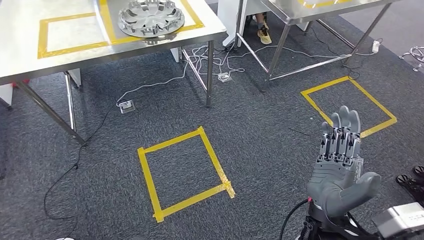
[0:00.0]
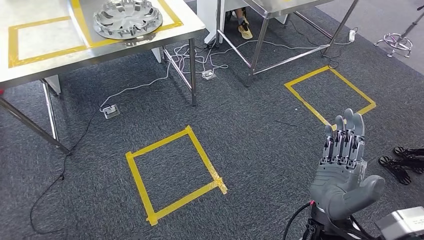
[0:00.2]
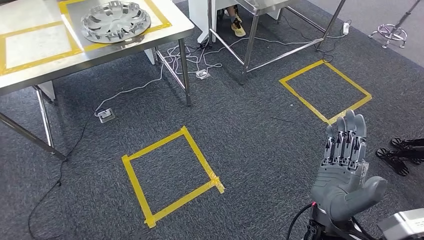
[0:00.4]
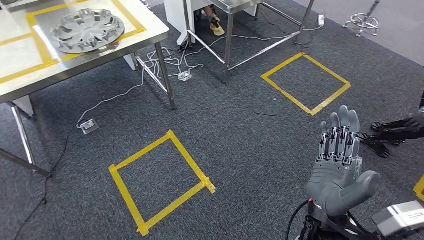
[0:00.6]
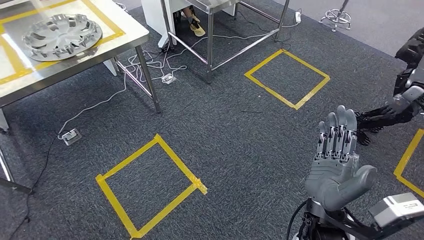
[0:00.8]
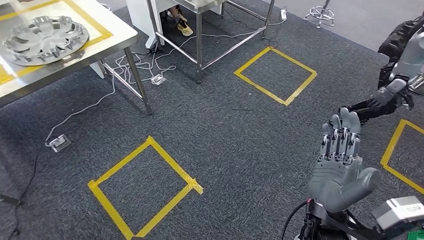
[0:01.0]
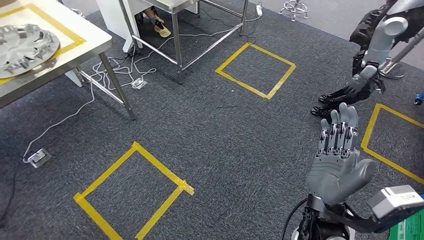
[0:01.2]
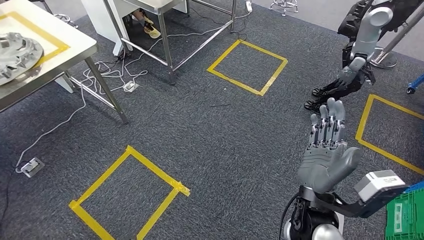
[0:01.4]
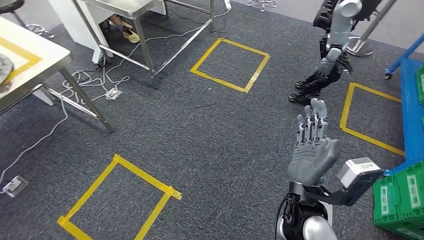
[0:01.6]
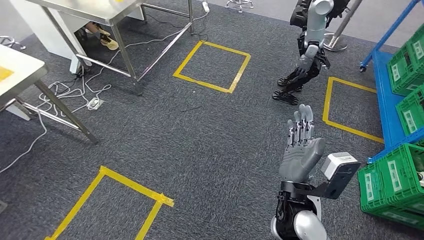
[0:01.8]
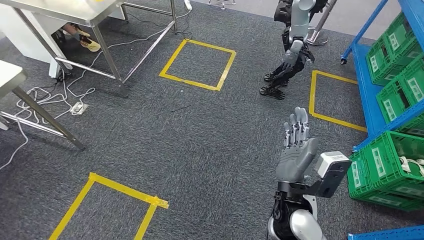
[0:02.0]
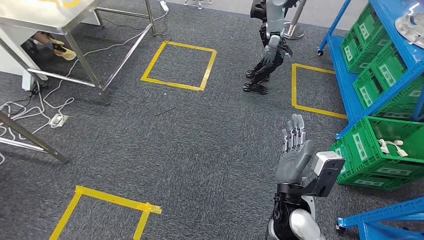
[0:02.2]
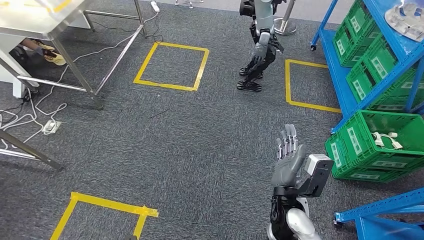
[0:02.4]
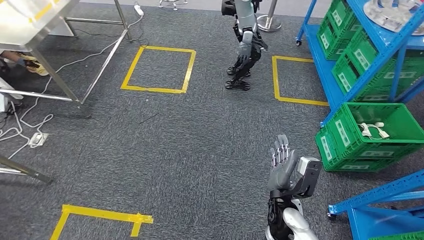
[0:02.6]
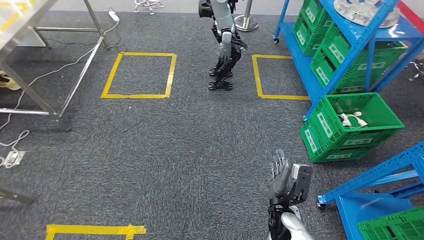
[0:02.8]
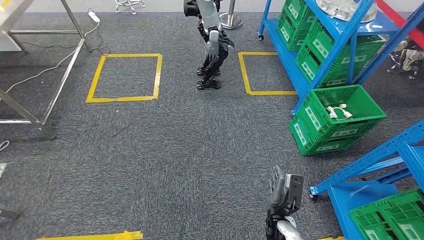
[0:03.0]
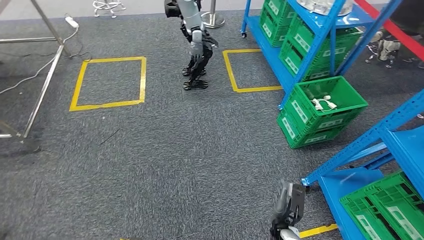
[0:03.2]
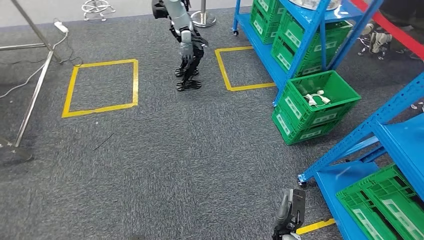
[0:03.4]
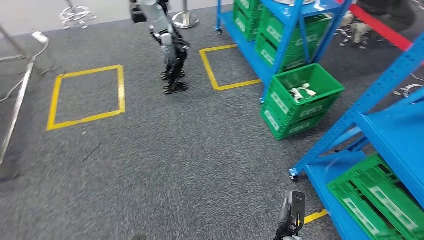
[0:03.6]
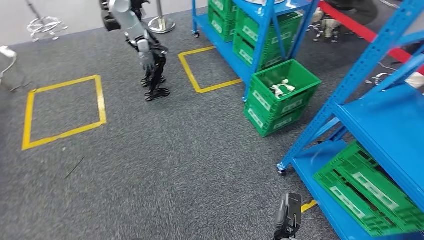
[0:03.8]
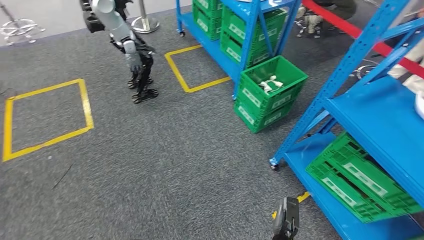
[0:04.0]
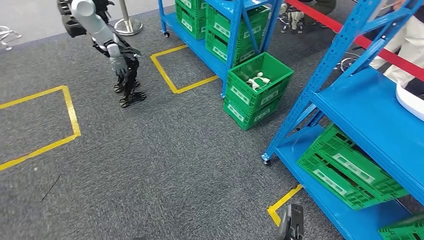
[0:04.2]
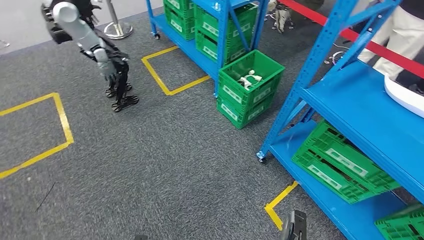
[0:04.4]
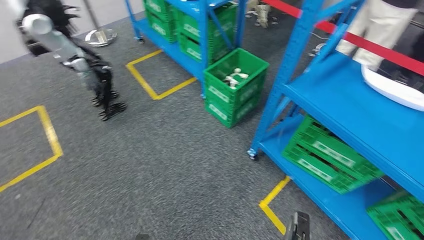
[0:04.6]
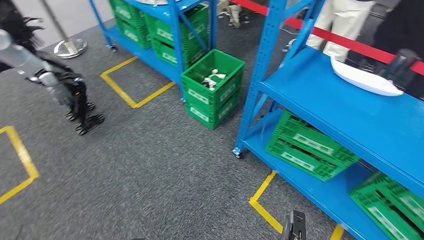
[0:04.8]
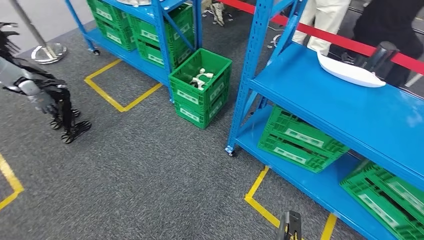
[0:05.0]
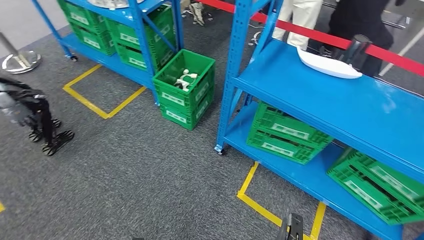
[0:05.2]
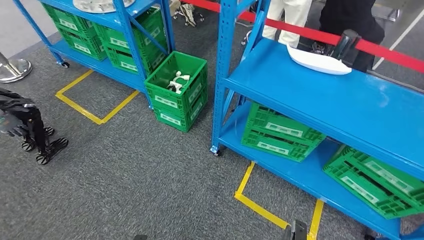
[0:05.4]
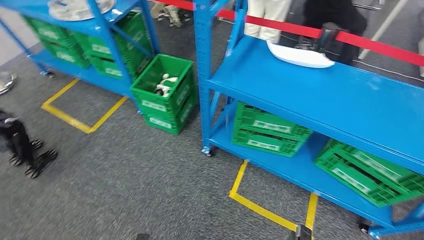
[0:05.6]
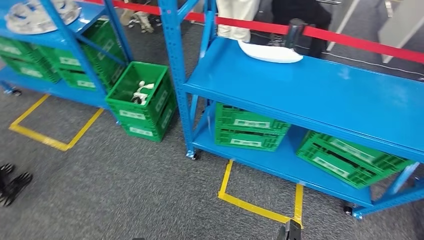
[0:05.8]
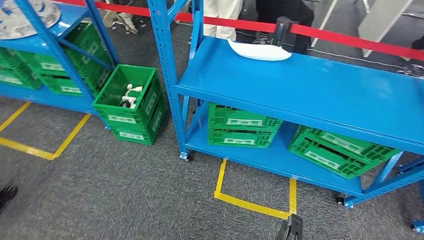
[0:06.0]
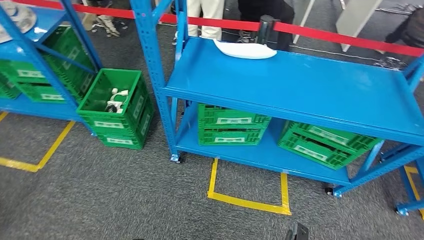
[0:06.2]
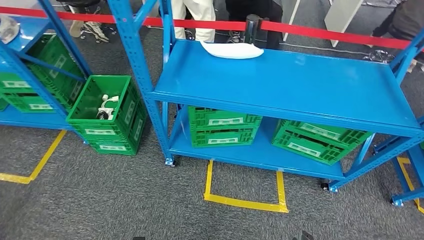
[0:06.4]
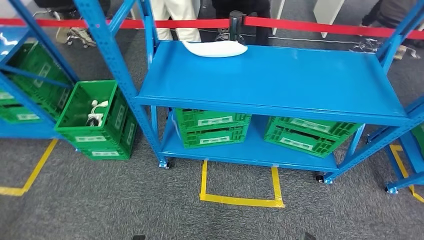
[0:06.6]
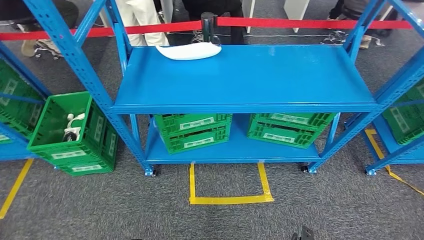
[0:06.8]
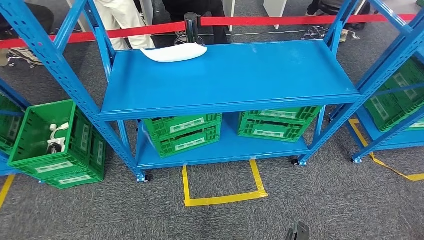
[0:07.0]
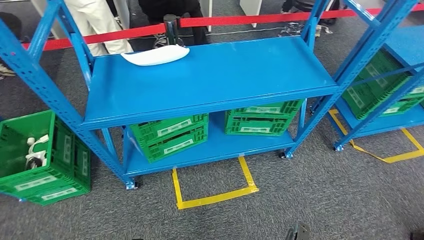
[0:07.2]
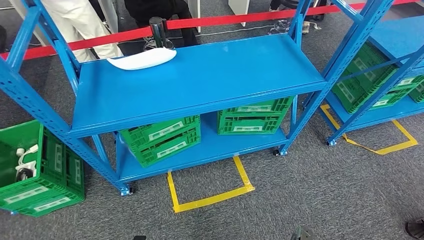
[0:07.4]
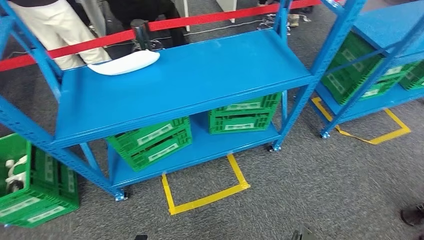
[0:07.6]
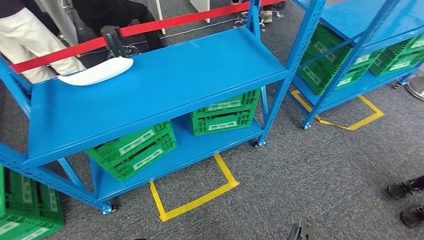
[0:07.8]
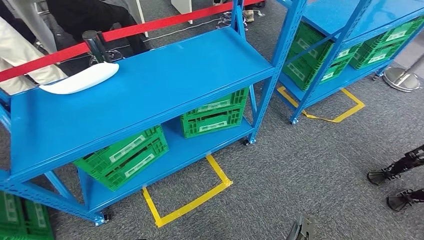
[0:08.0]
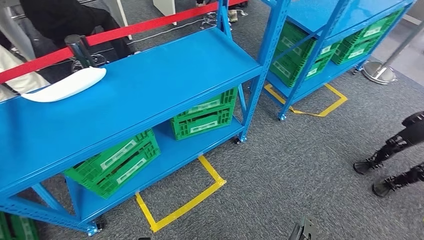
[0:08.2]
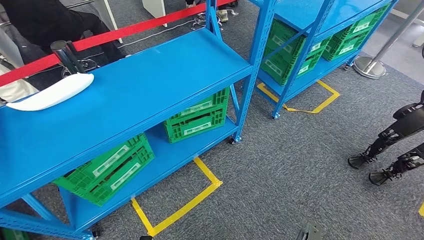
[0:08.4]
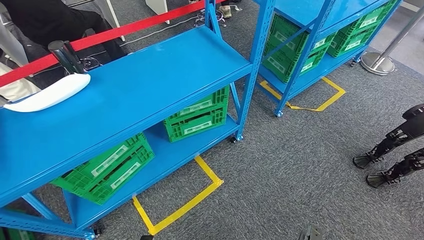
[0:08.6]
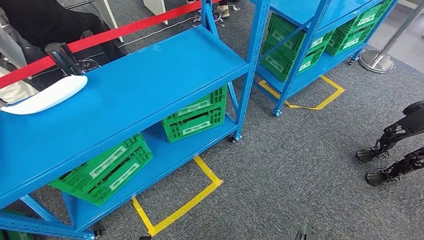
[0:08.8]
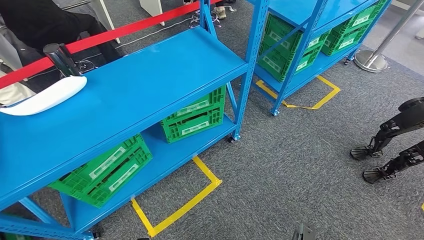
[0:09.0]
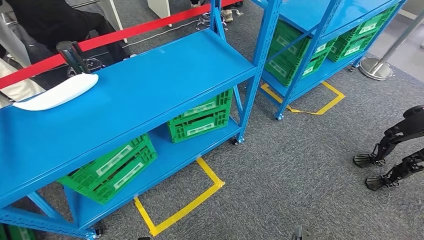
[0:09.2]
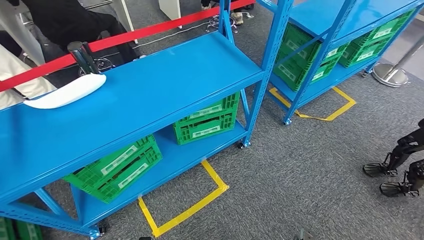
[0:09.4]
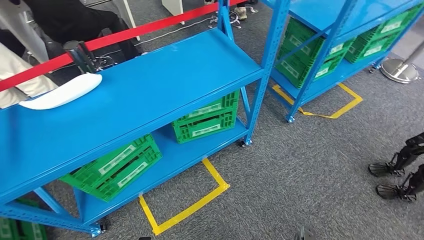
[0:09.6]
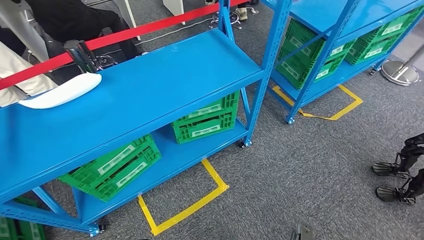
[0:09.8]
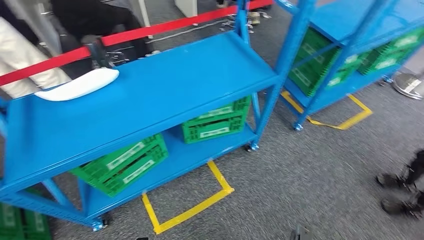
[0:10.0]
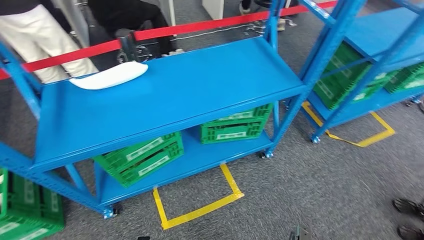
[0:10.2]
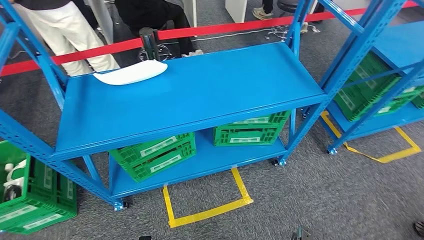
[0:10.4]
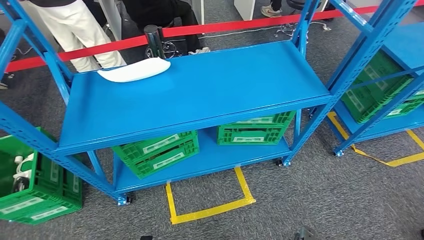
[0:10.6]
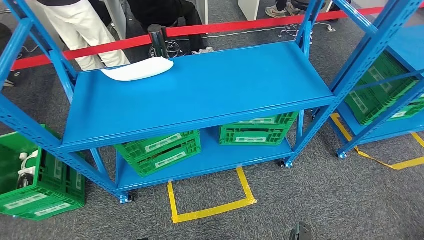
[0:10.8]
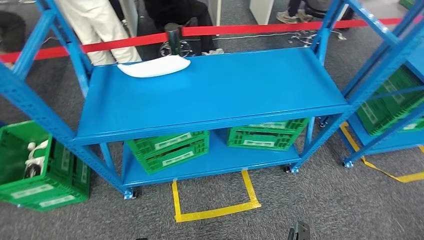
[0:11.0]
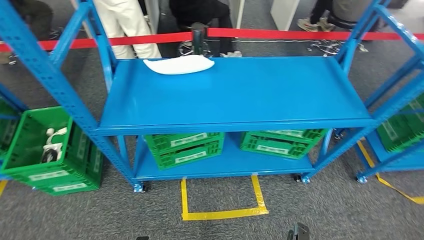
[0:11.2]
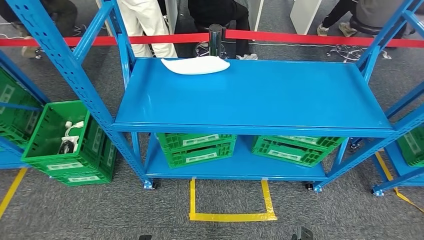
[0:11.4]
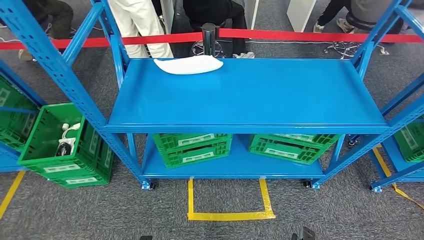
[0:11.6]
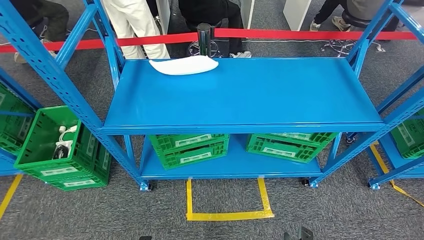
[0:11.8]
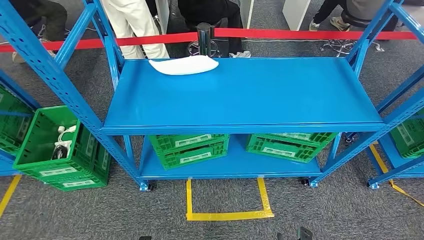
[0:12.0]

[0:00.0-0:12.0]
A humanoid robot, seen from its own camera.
Step, 0:00.0 to 0:11.8: Move to the initial position at the workbench.
